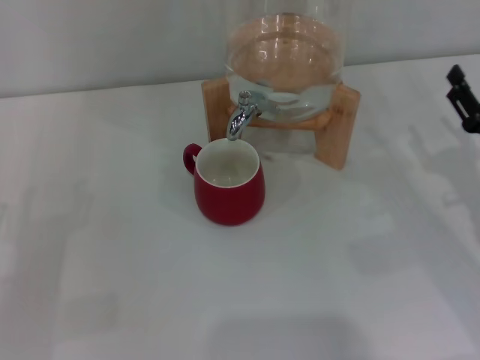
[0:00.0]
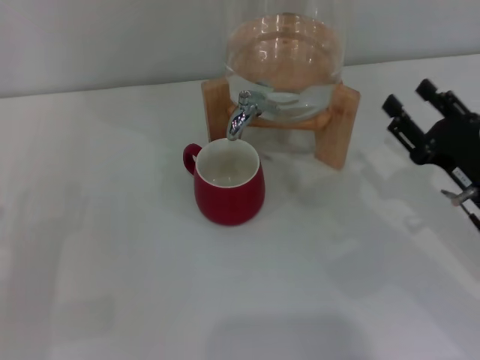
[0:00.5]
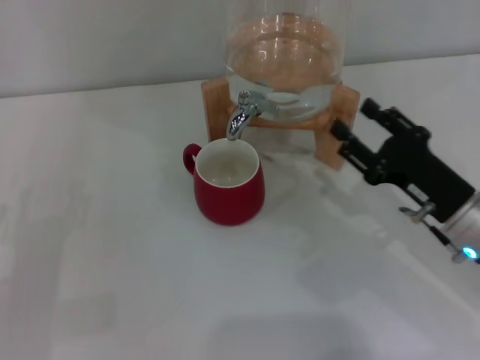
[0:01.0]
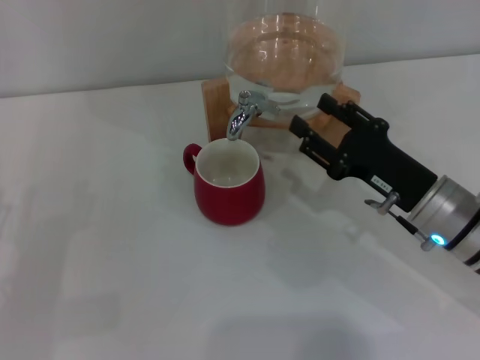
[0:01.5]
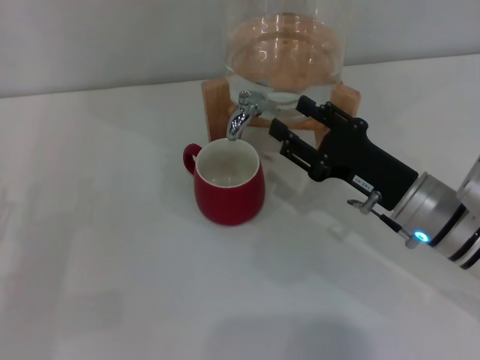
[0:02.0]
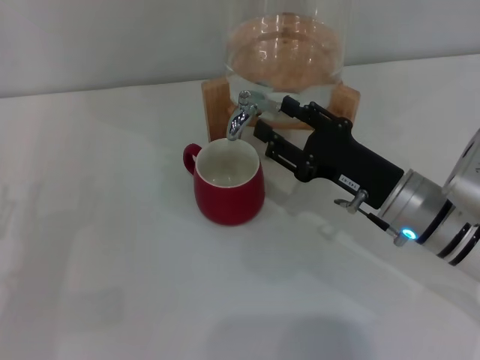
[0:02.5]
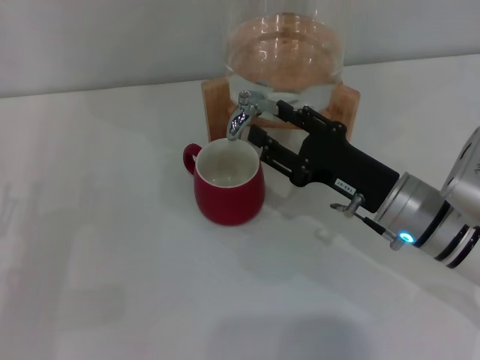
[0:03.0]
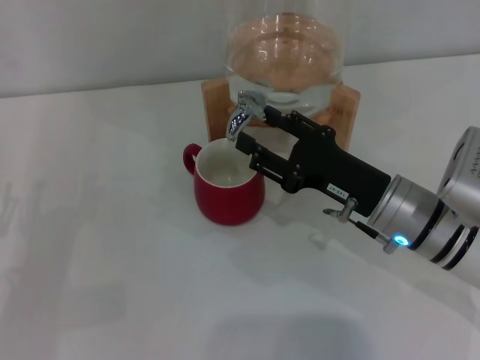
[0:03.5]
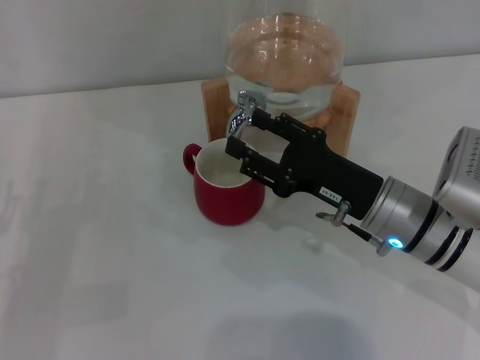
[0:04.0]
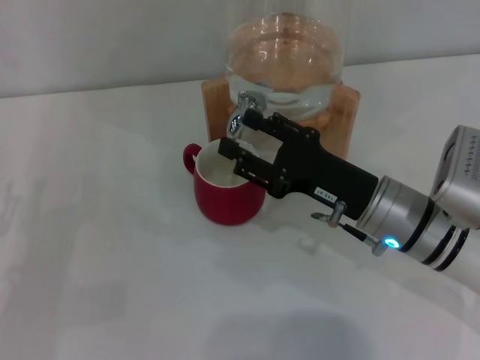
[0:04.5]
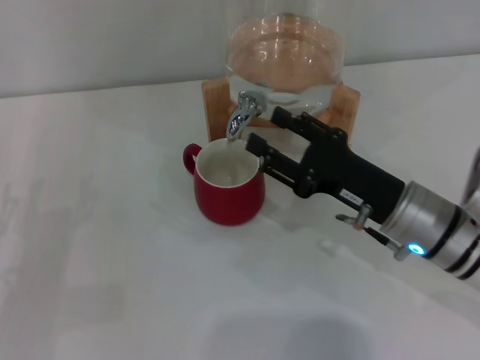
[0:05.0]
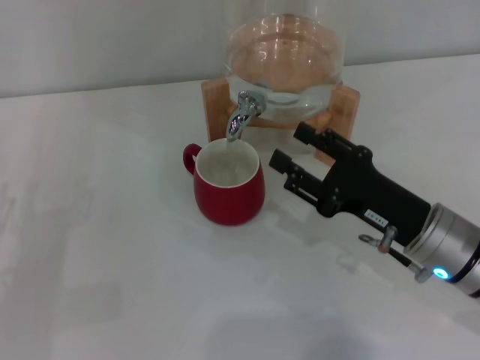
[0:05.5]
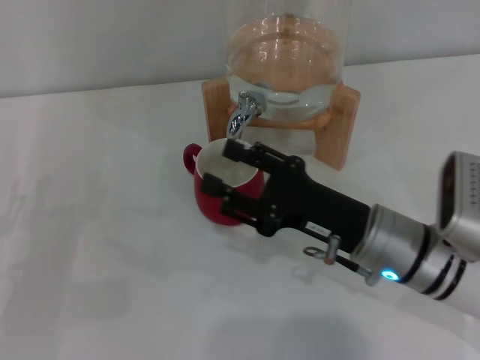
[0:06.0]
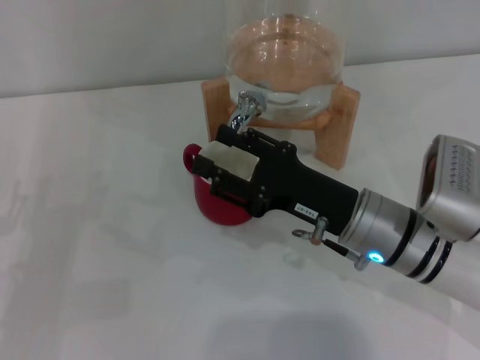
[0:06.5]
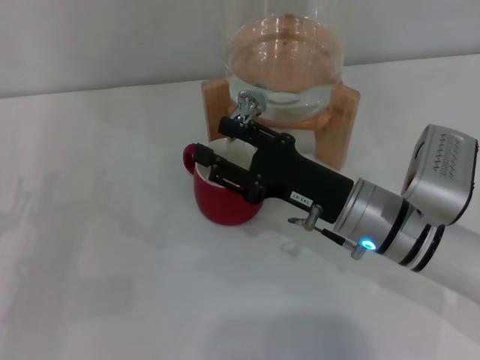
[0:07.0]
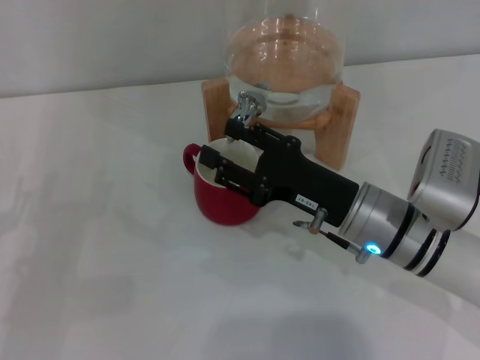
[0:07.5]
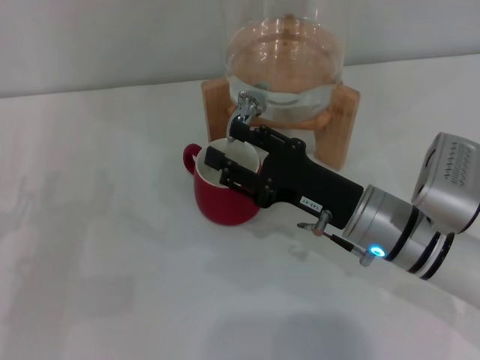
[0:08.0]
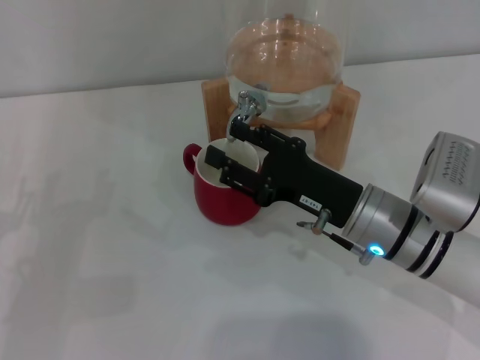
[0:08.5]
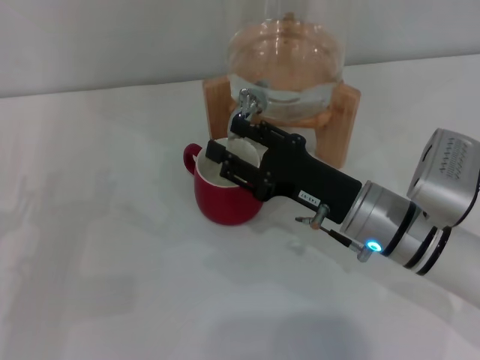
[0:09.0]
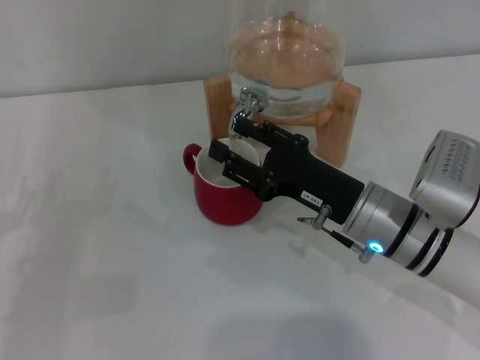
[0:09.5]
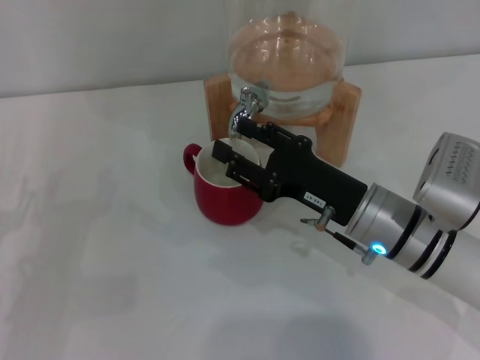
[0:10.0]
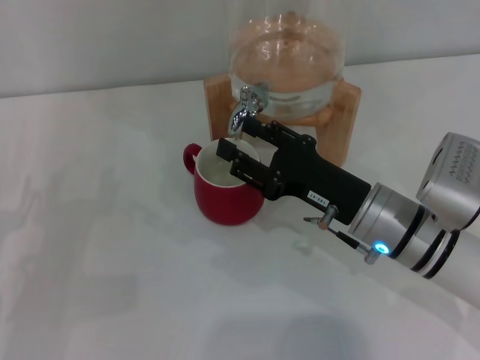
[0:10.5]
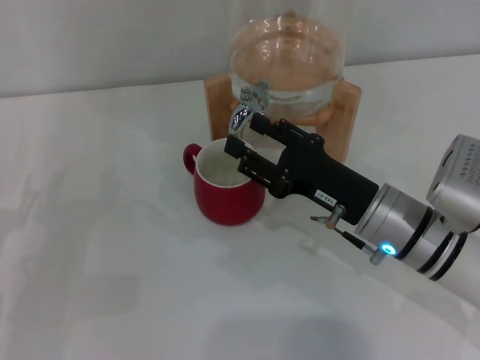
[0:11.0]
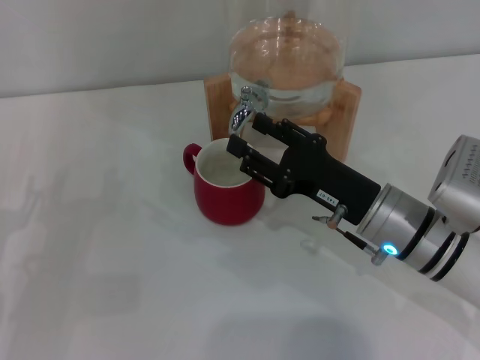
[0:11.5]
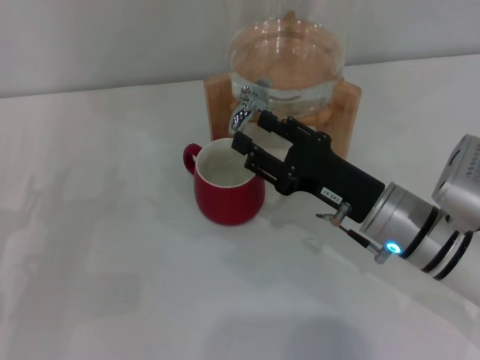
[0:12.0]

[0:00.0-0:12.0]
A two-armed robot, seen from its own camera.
Task of the whole recording: the left gripper pick up the red cup and place it horizontally under the faucet, the right gripper turn on the faucet to fill the cup, and then turn off the faucet.
Step, 0:00.0 to 0:04.5: Open the dispenser valve and fill the cup with water with the right gripper.
0:00.0 to 0:02.0: The right gripper heads to the left, covering some 10 cm.
0:02.0 to 0:08.0: The grippers make only small movements.
0:08.0 to 0:10.0: The two grippers keep their place.
0:10.0 to 0:12.0: The two grippers keep their place.

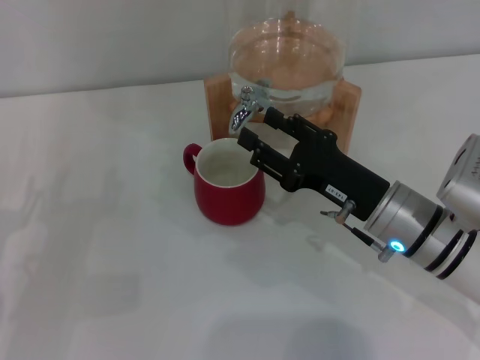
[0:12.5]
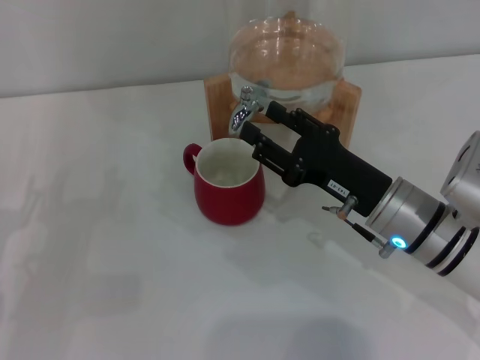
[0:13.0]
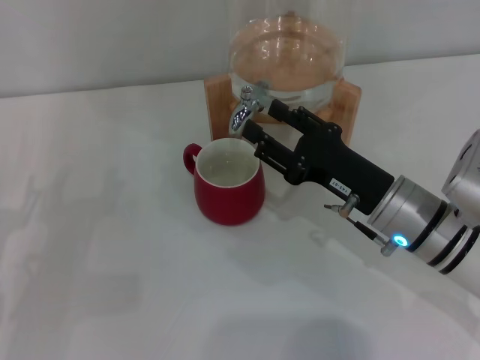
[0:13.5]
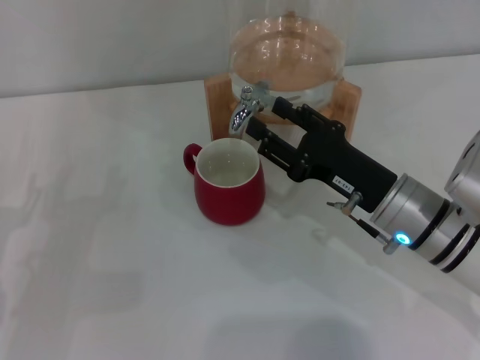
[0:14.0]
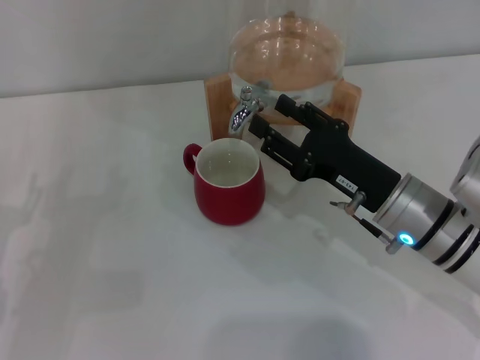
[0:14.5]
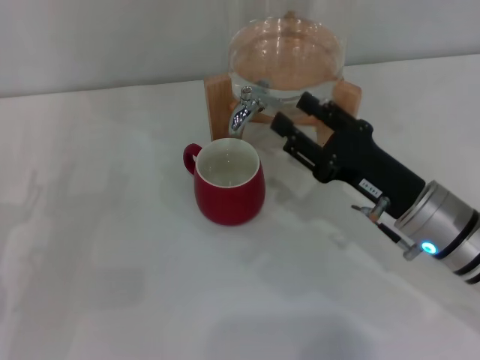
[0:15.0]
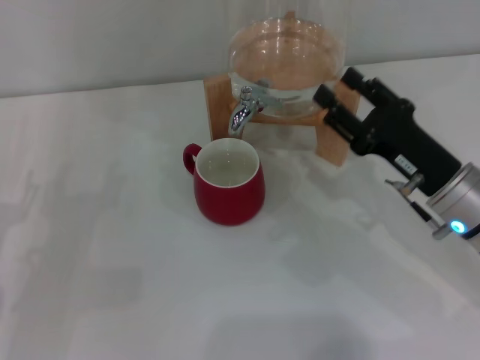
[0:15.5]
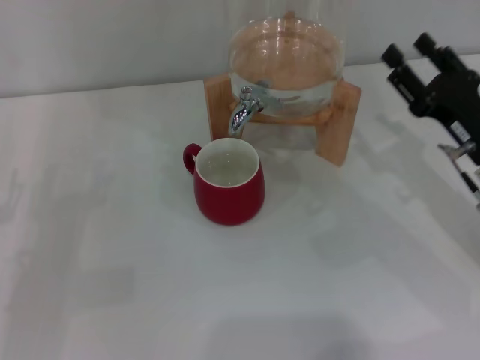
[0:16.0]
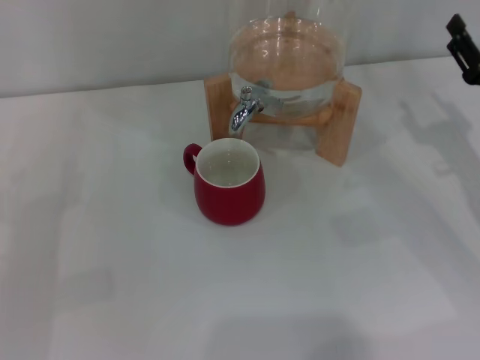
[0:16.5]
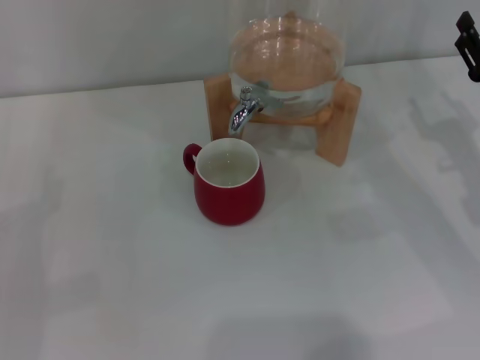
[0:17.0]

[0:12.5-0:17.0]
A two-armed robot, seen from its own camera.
Task of the whole recording: the left gripper pick up the red cup and place it horizontally under the faucet, the right gripper turn on the faucet to fill the cup, and then turn off the faucet.
Step, 0:12.5 to 0:14.5: Close the dispenser valve with the right gripper.
0:12.5 to 0:14.5: Both grippers stay put.
0:14.5 to 0:17.0: The right gripper travels to the right by about 15 cm.
